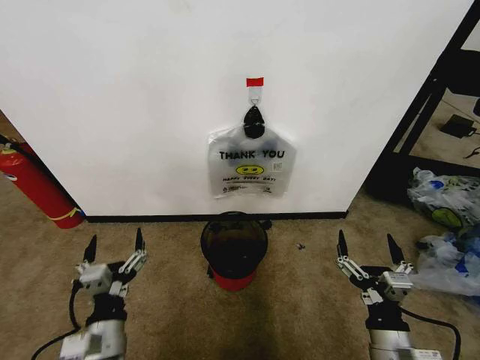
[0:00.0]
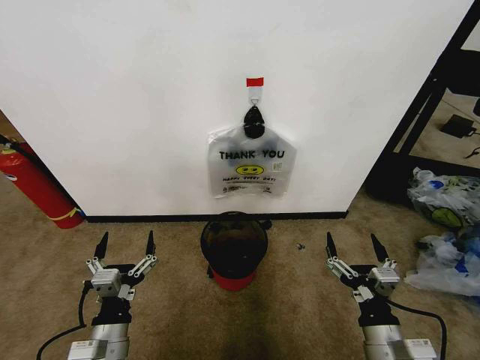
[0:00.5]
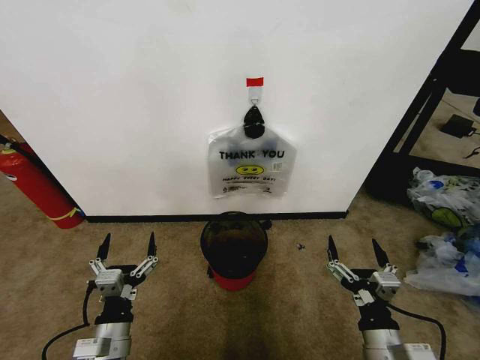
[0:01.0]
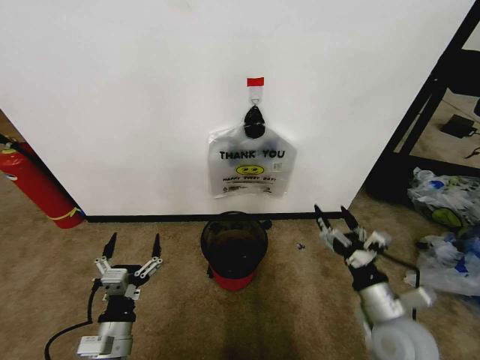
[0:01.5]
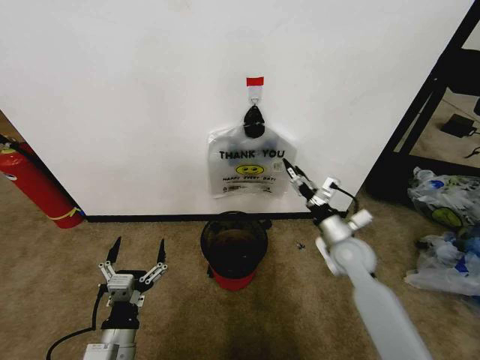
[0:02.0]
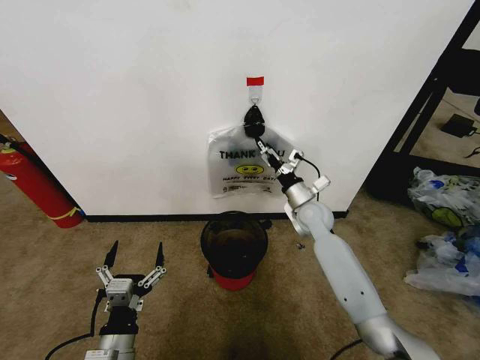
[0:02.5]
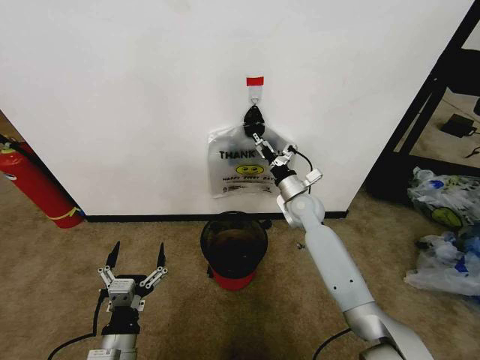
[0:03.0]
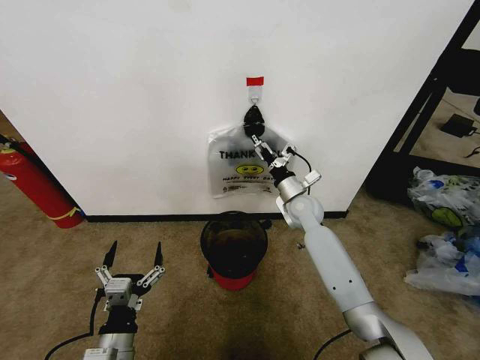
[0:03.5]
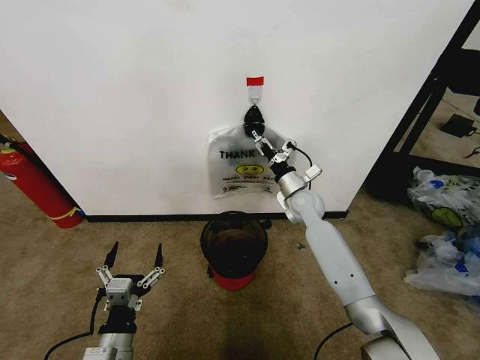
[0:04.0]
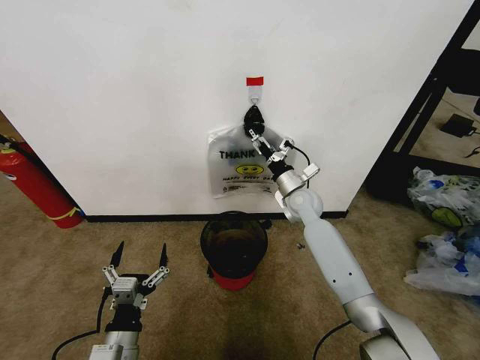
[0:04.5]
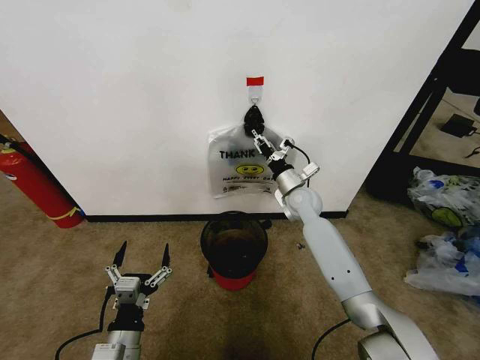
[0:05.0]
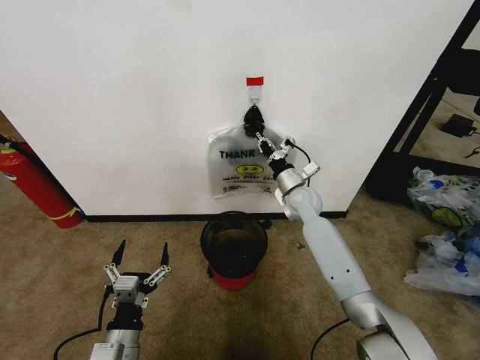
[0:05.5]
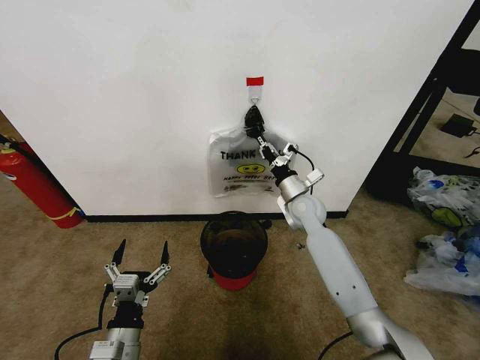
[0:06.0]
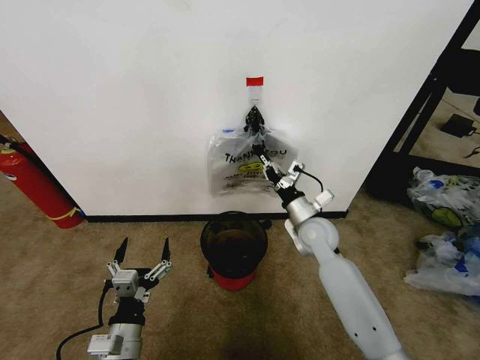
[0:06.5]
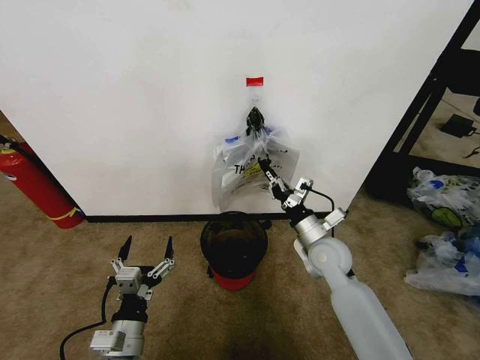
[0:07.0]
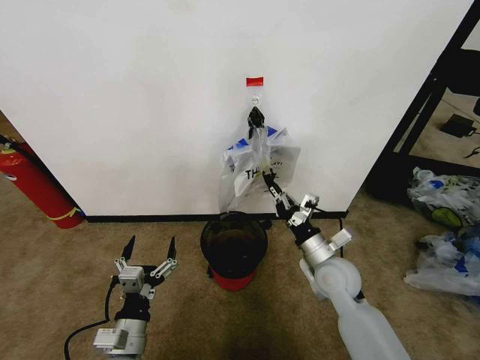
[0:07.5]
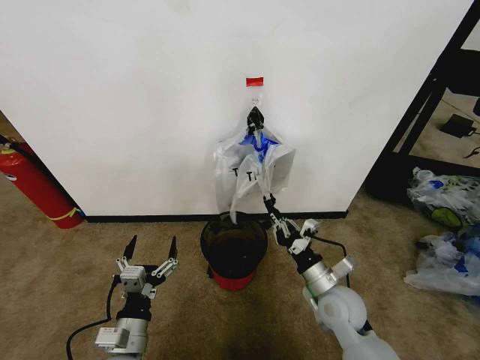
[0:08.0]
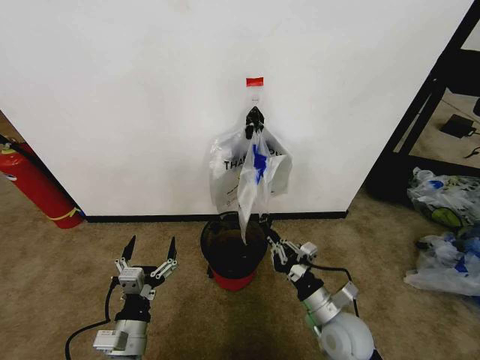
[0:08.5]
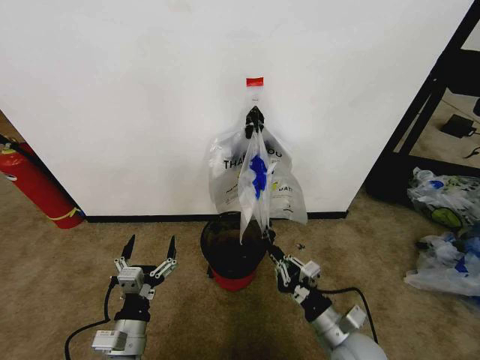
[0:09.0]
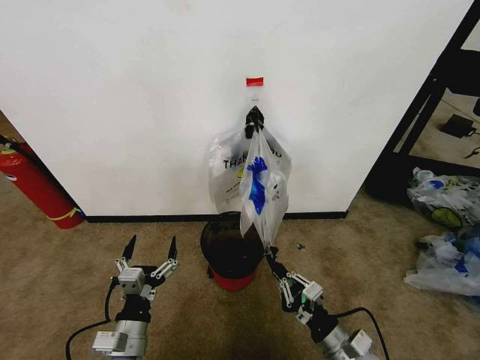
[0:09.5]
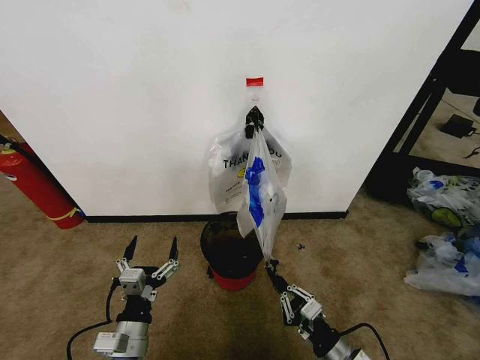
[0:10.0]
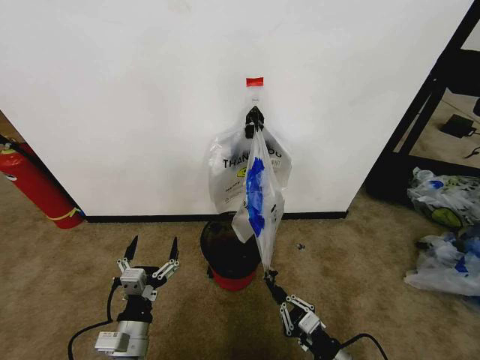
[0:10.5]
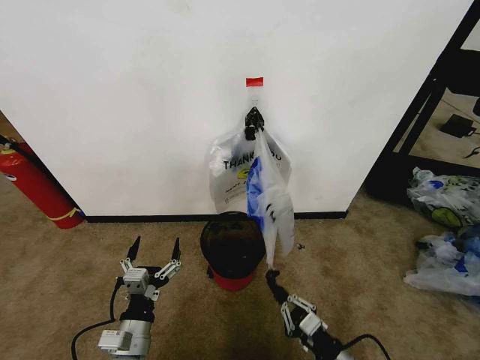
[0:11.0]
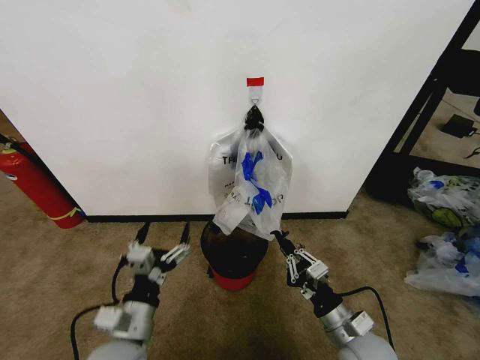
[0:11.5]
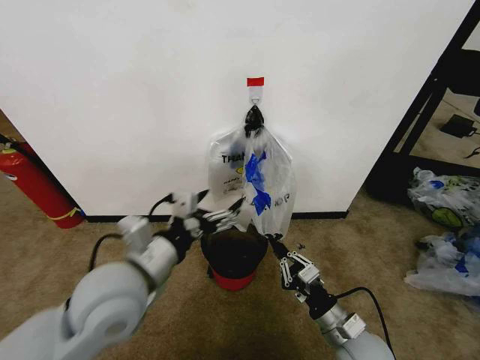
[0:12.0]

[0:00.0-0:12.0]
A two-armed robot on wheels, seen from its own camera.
Task of the whole recording: Pick up the garbage bag from the wall and place it over the trash bin.
0:02.0 to 0:04.0: The right gripper goes about 20 cm forward and to the left.
0:04.0 to 0:06.0: The right gripper closes up.
0:06.0 to 0:08.0: The right gripper is displaced backward by roughly 20 cm.
0:08.0 to 0:10.0: The right gripper moves backward, approximately 15 cm.
0:10.0 to 0:12.0: The left gripper heads upward and forward, covering approximately 20 cm; the right gripper is displaced forward by roughly 5 cm.

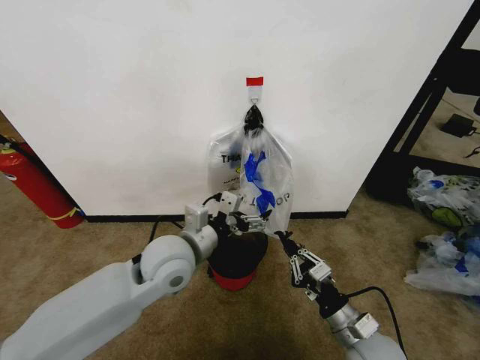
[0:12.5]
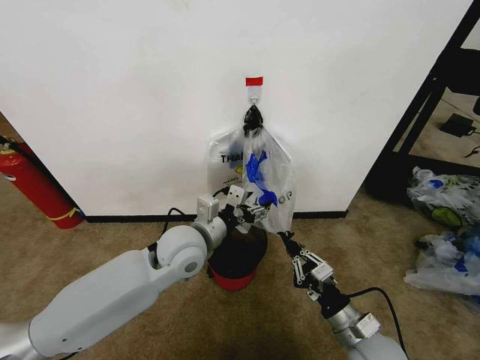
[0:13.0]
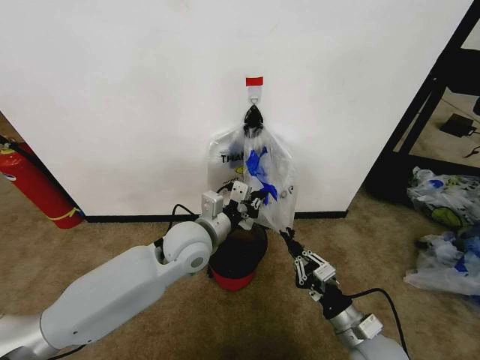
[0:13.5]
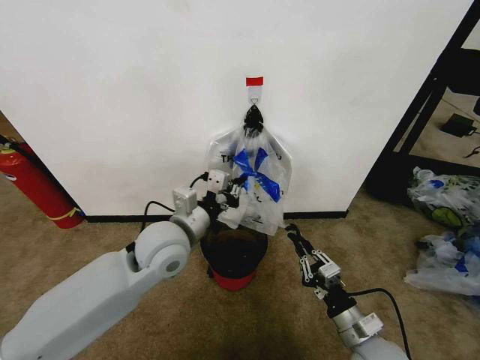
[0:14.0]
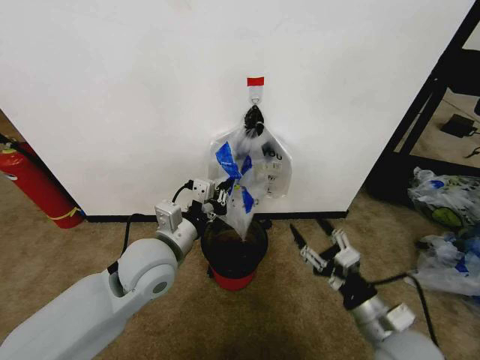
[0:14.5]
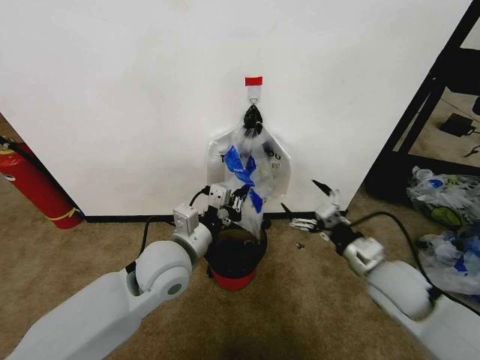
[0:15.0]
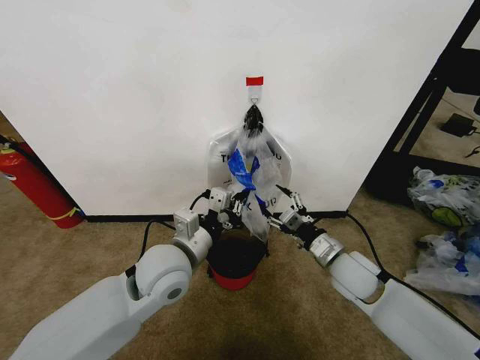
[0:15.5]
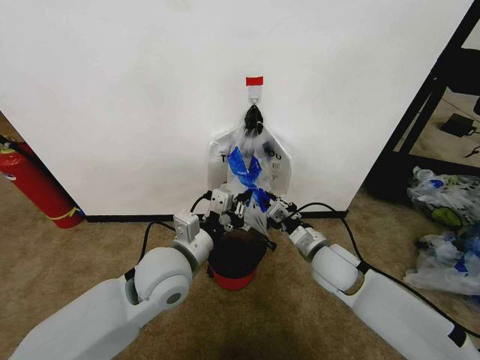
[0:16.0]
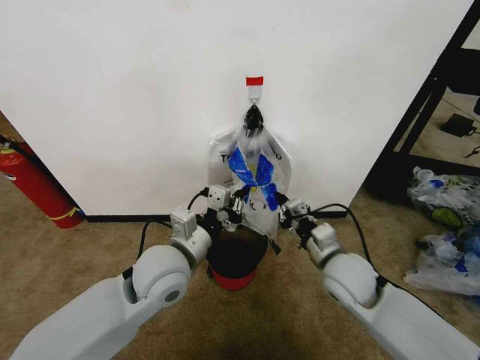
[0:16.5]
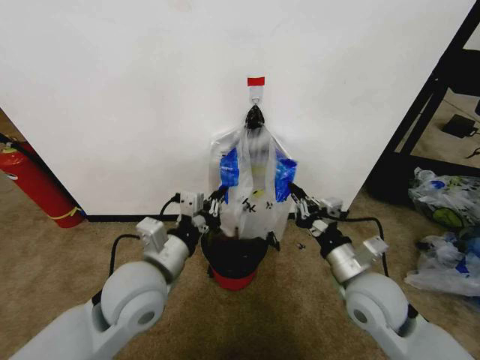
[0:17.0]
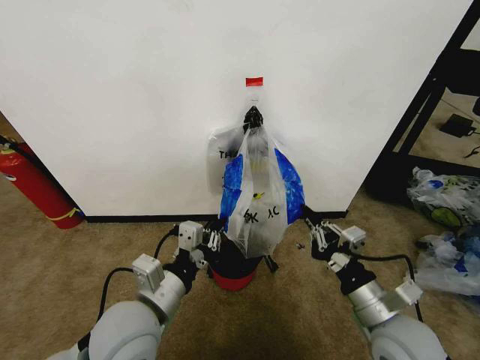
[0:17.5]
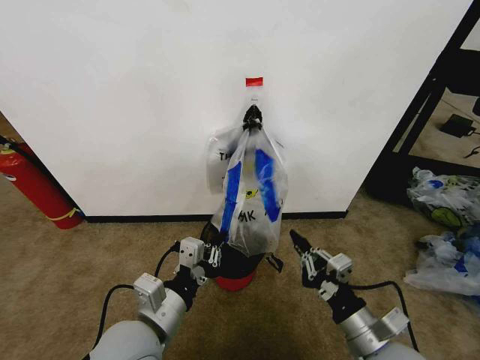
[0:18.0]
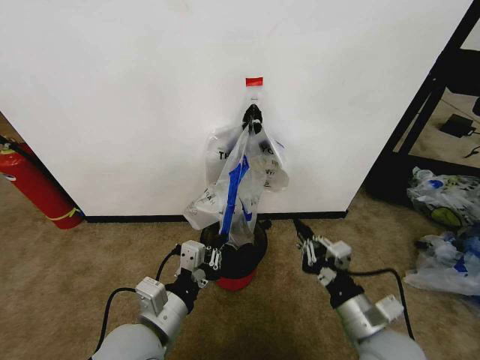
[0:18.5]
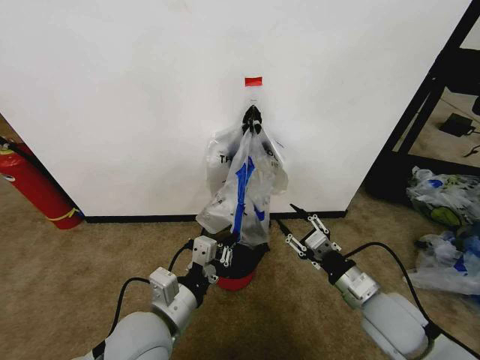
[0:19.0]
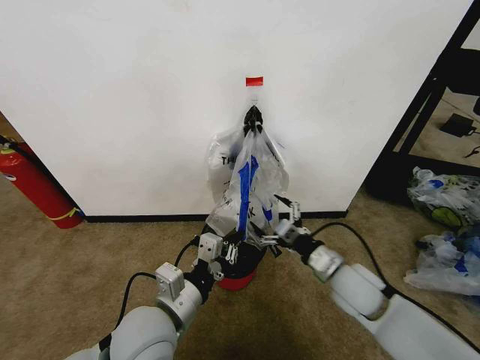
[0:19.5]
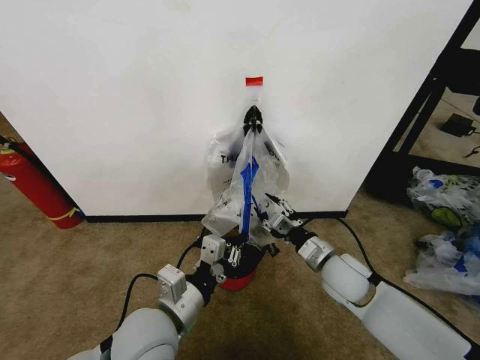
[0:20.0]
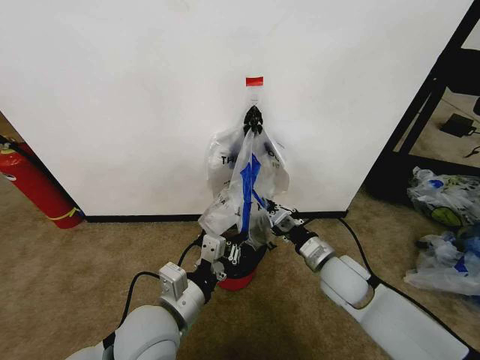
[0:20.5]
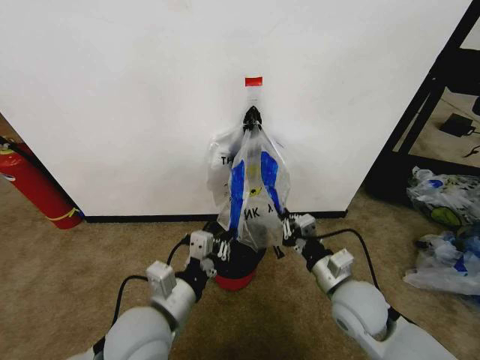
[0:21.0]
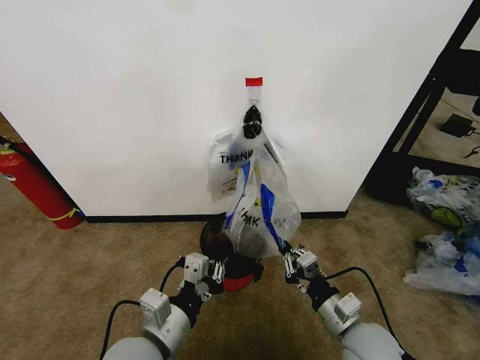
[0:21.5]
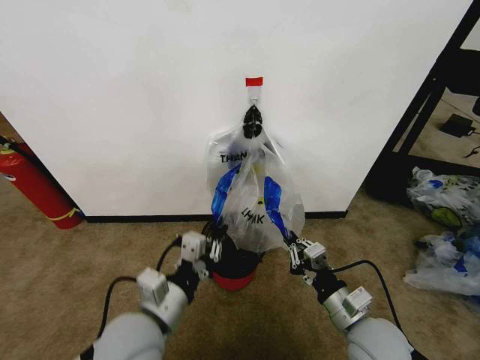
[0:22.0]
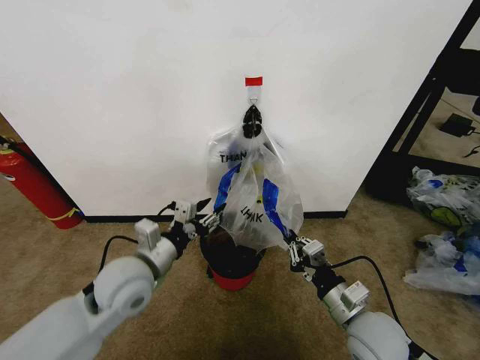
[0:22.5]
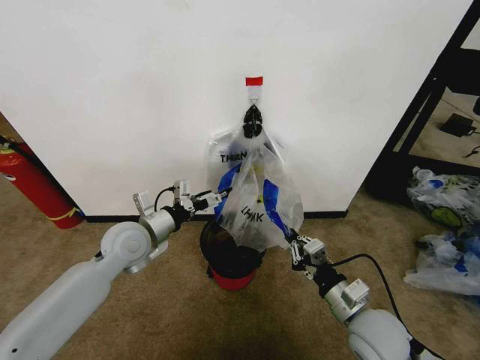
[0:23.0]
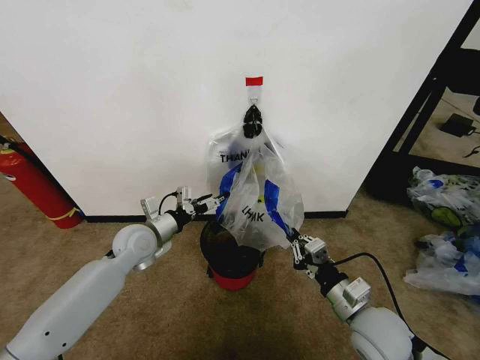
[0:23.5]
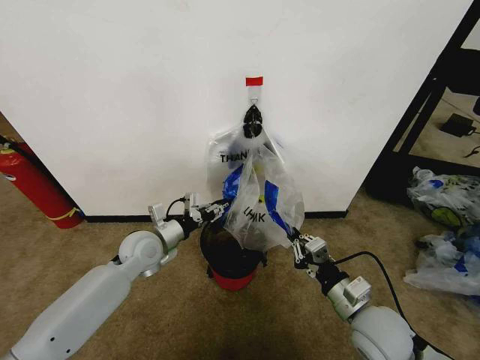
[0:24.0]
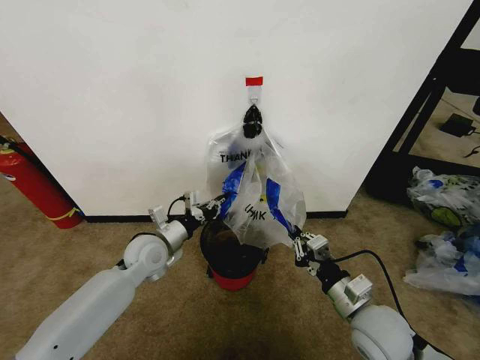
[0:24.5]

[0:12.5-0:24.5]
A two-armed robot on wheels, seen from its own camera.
Task of the whole recording: Pick up the garbage bag from the wall and place it over the trash bin.
0:12.5 to 0:14.5: The left gripper closes up. Meanwhile the right gripper goes about 10 cm upward, and opens up.
0:14.5 to 0:16.5: The right gripper moves forward and to the left, some 15 cm, and closes its fingers.
0:16.5 to 0:18.5: The two grippers go approximately 15 cm backward.
0:18.5 to 0:20.5: The right gripper moves forward, roughly 15 cm, and opens, then closes again.
0:20.5 to 0:22.5: The left gripper moves forward and to the left, about 10 cm, and opens up. Meanwhile the right gripper goes about 10 cm backward.
0:22.5 to 0:24.5: The left gripper is displaced forward and downward by roughly 15 cm, and closes up.

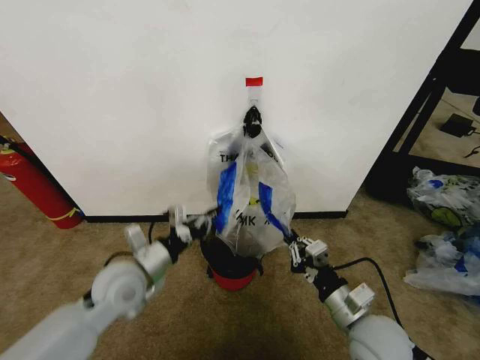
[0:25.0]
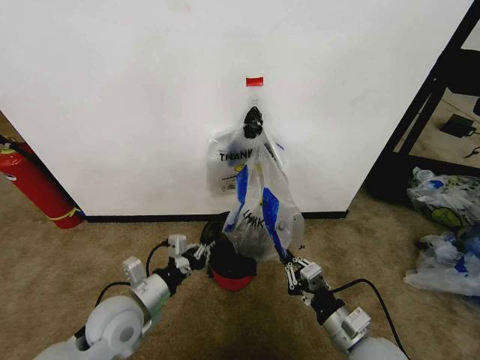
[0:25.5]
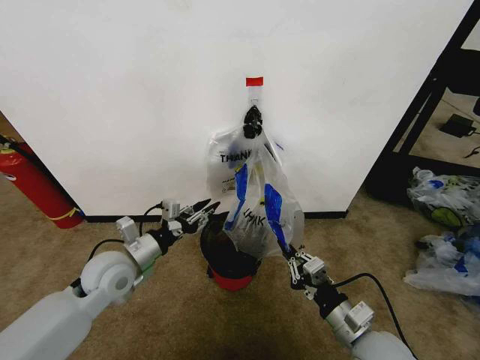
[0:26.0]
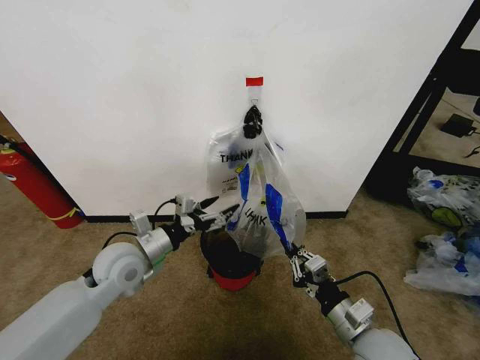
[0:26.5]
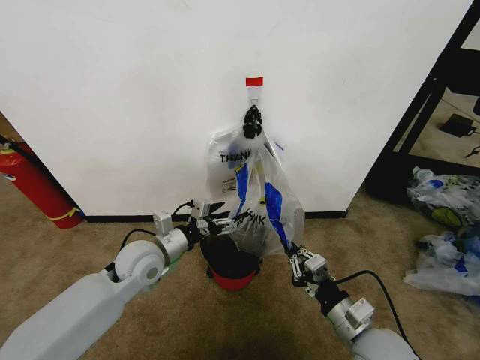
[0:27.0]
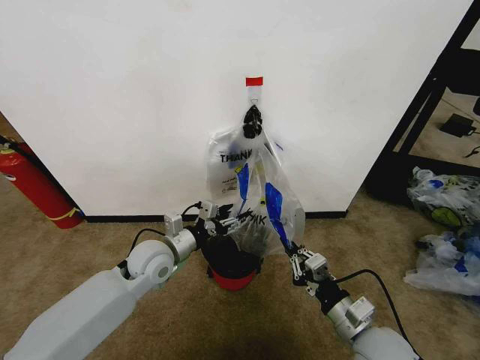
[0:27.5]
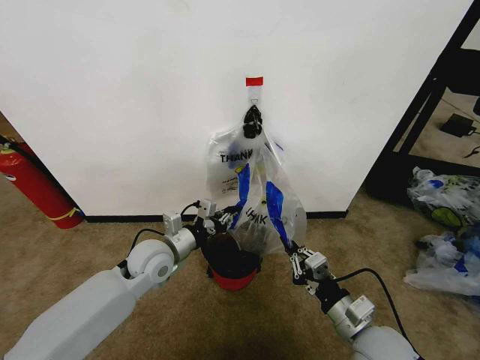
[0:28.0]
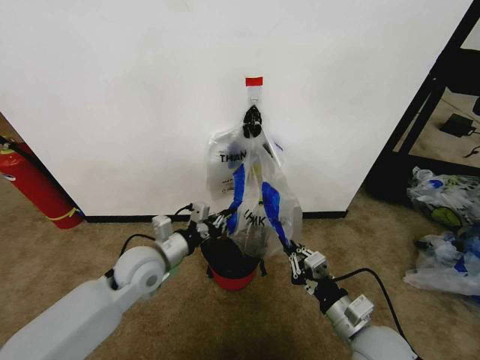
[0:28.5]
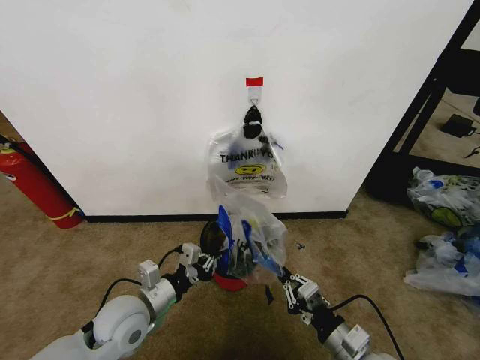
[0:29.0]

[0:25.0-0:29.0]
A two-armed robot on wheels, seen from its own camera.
Task of the whole recording: Pick up the garbage bag from the wall and place it over the trash bin.
0:25.0 to 0:27.0: The left gripper moves forward, approximately 5 cm, and opens its fingers.
0:27.0 to 0:29.0: The left gripper shifts some 10 cm backward, and closes.
